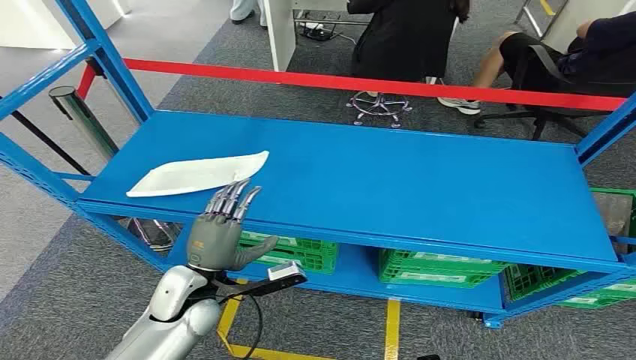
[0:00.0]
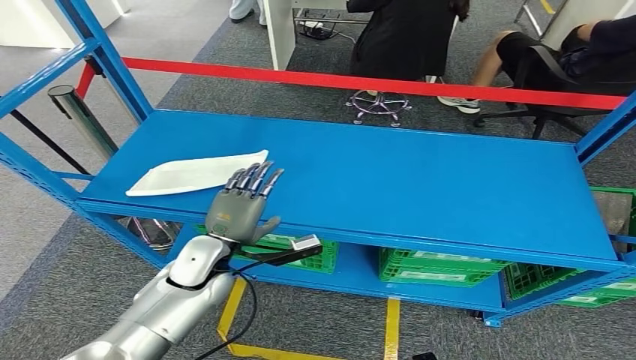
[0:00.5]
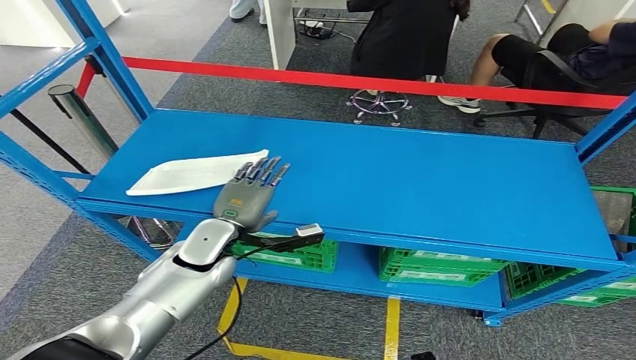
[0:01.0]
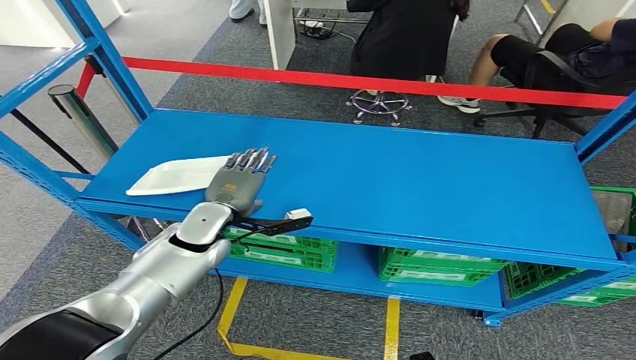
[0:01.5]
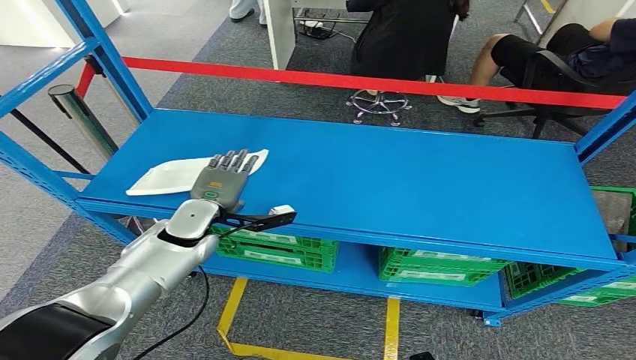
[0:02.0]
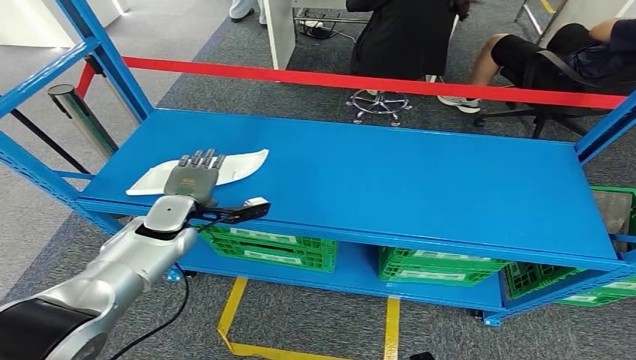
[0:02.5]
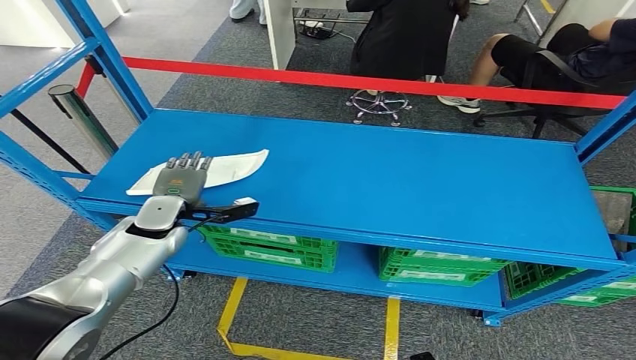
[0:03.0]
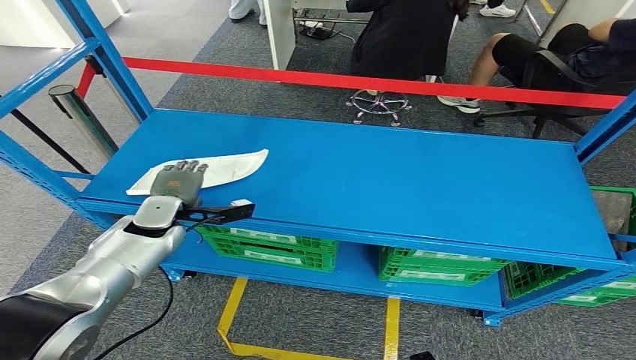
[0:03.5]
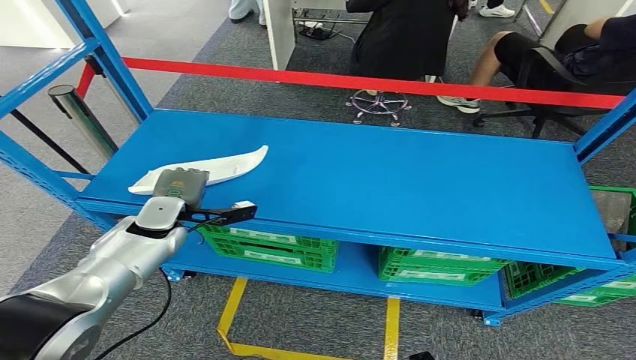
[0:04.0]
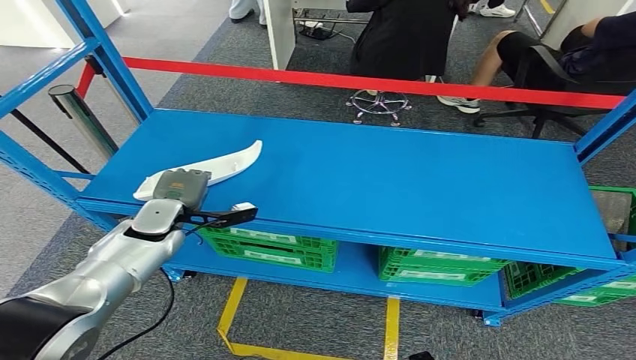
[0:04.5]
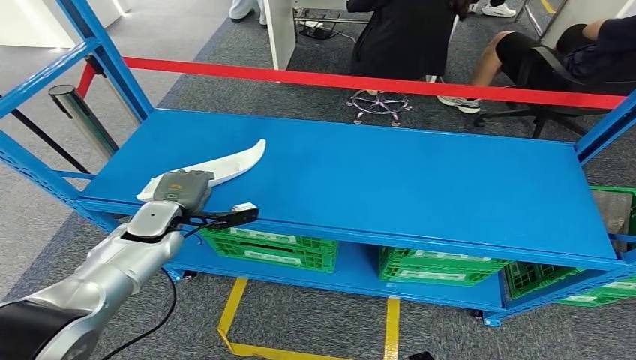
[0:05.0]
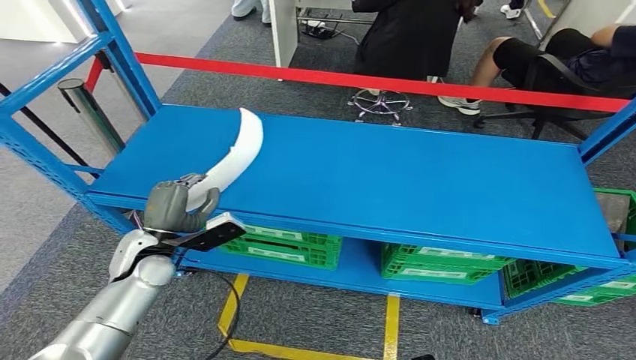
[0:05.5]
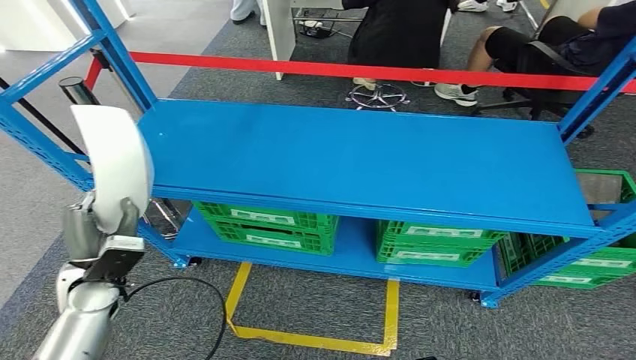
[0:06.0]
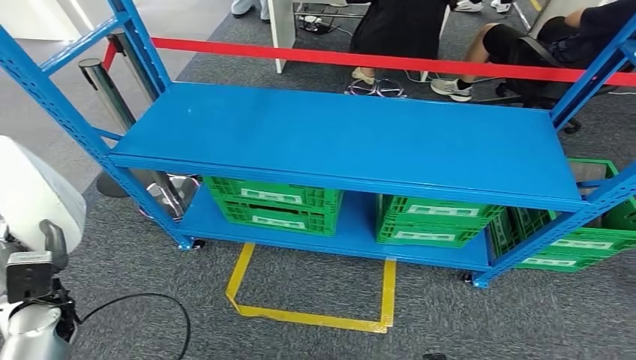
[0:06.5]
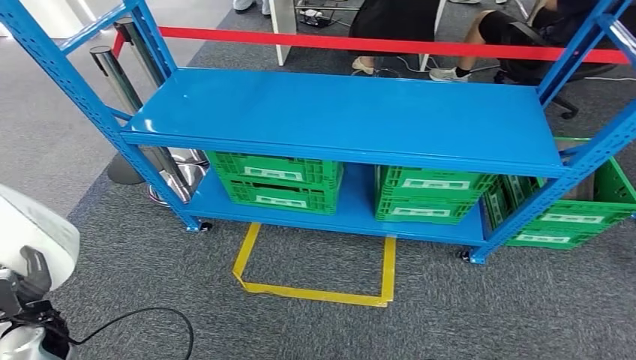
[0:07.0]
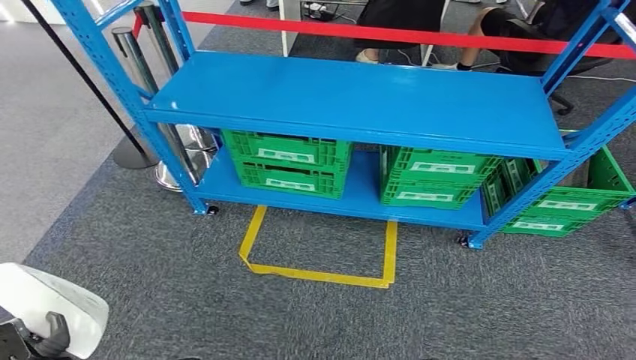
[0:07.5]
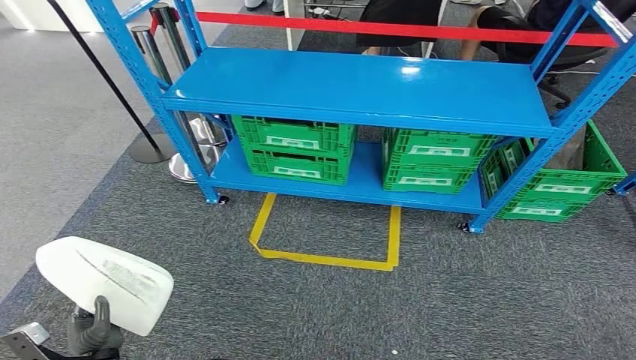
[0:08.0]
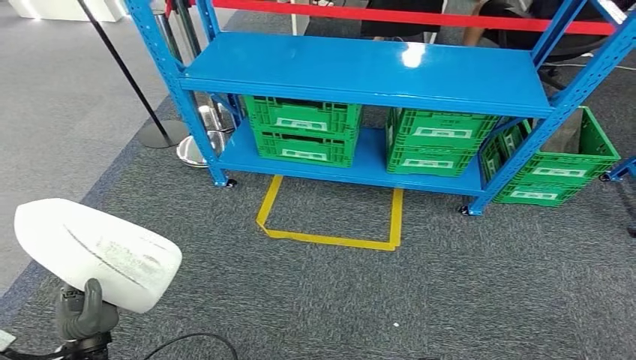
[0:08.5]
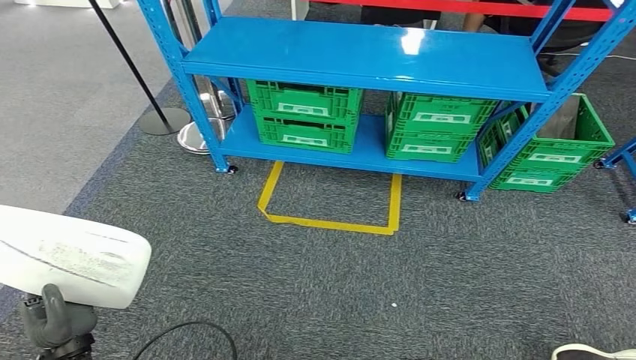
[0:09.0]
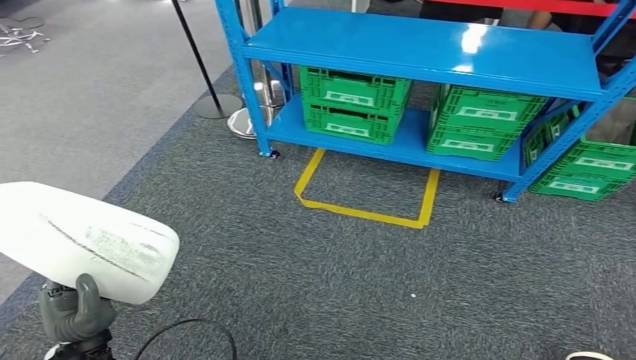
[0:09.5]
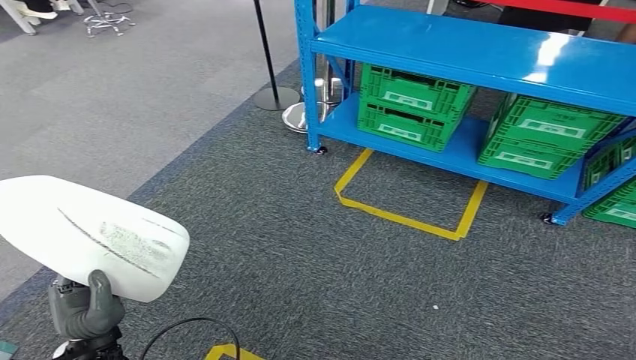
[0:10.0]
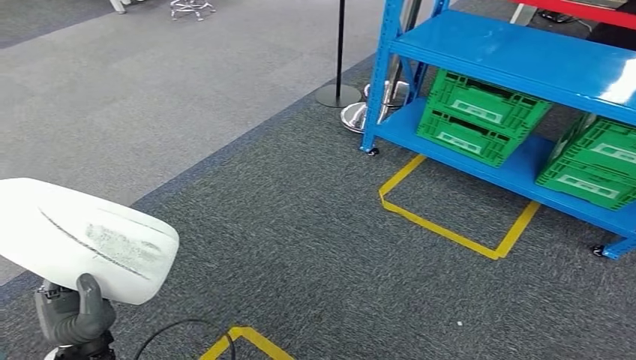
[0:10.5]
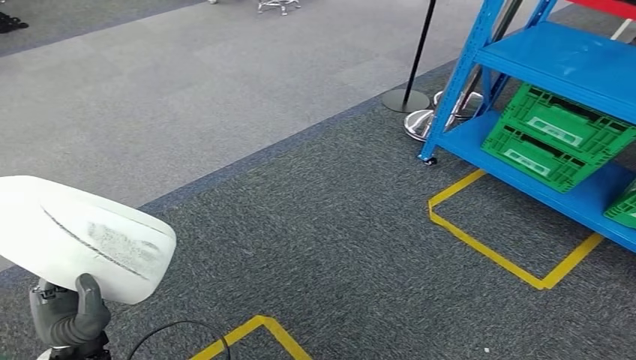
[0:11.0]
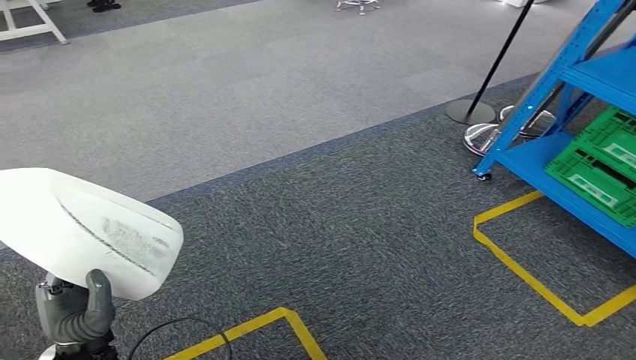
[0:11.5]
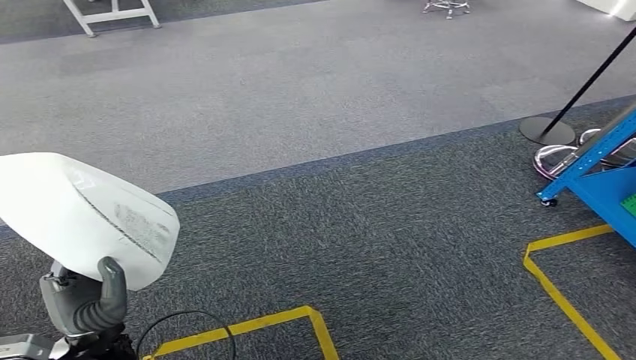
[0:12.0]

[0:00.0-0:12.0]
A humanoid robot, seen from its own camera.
Step, 0:00.0 to 0:06.5: Pick up the small component from the shelf.
0:02.0 to 0:04.0: The left hand is displaced to the left by some 5 cm.

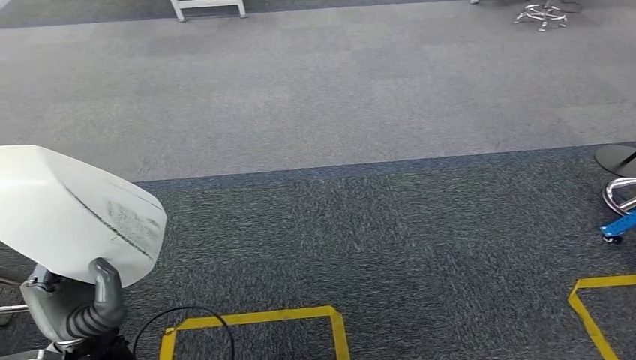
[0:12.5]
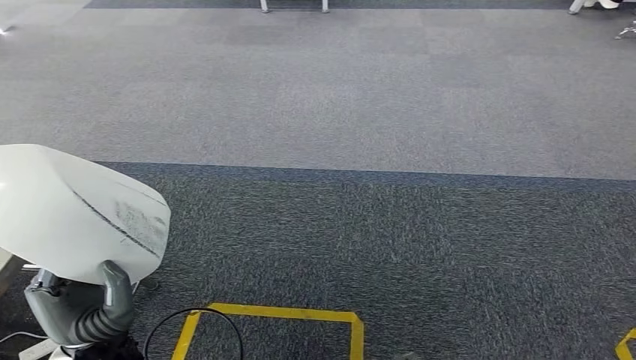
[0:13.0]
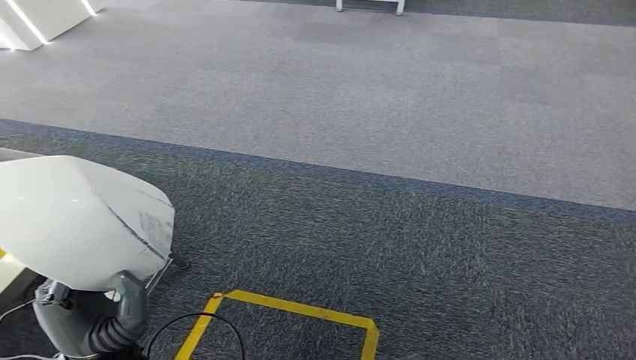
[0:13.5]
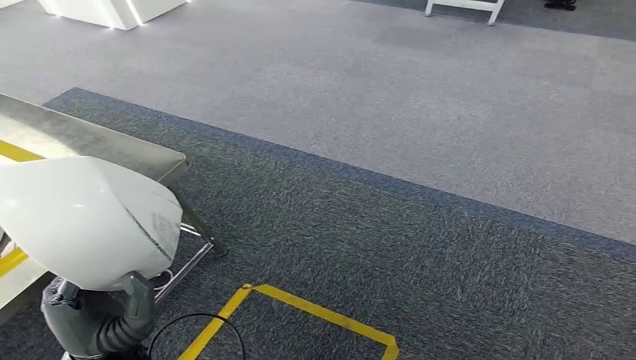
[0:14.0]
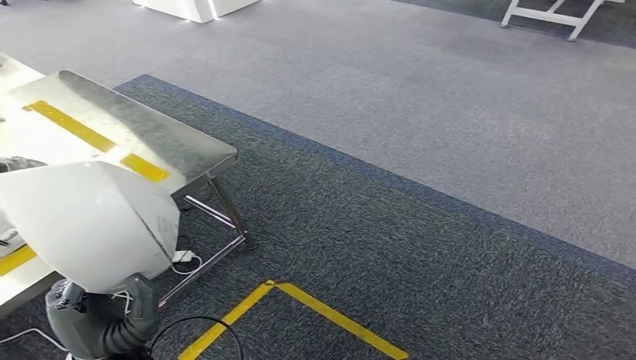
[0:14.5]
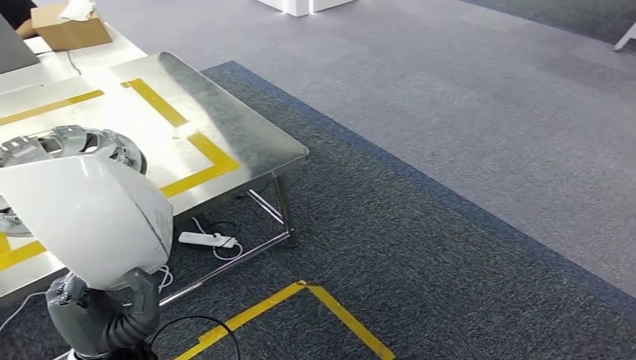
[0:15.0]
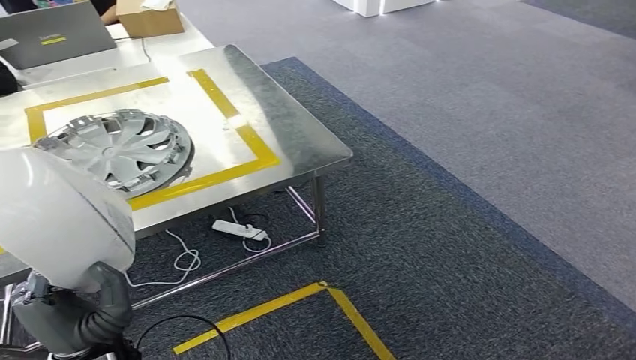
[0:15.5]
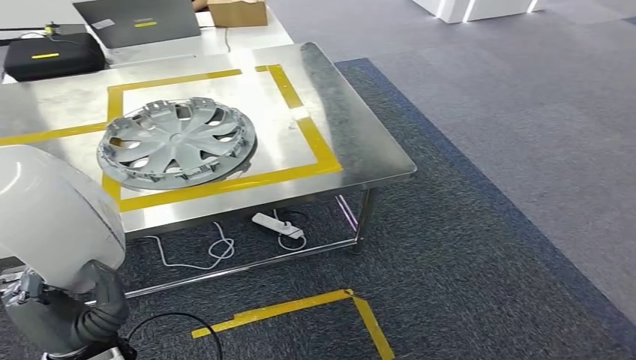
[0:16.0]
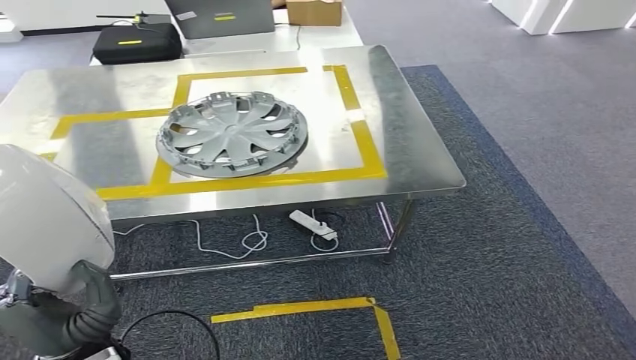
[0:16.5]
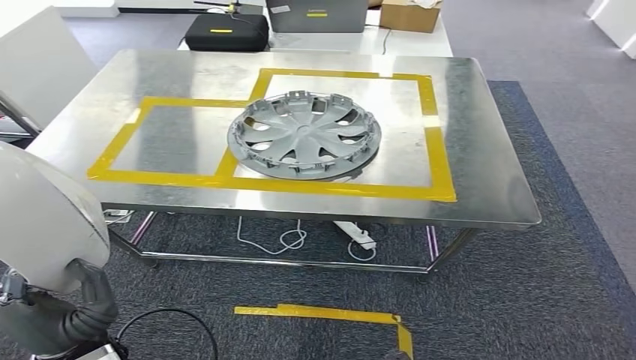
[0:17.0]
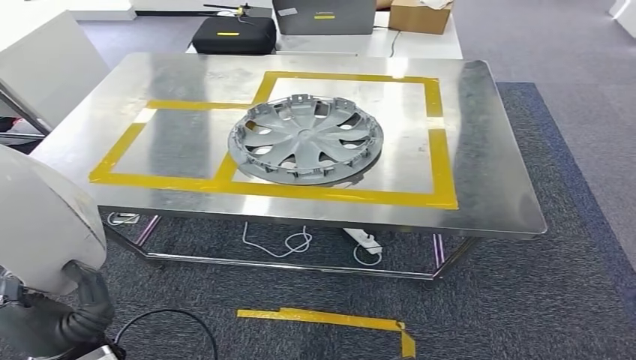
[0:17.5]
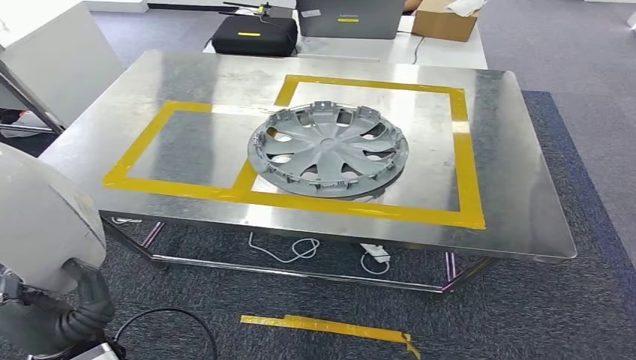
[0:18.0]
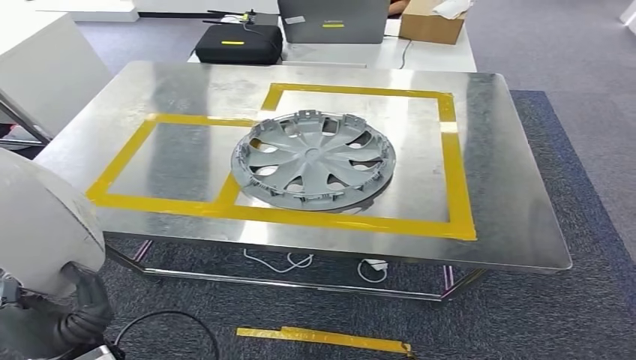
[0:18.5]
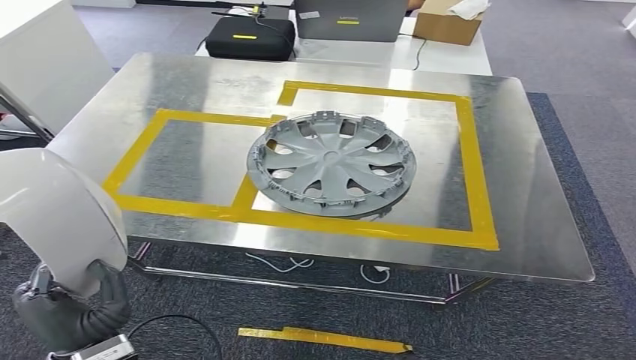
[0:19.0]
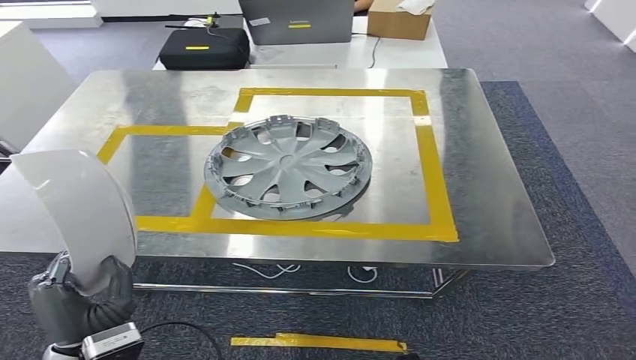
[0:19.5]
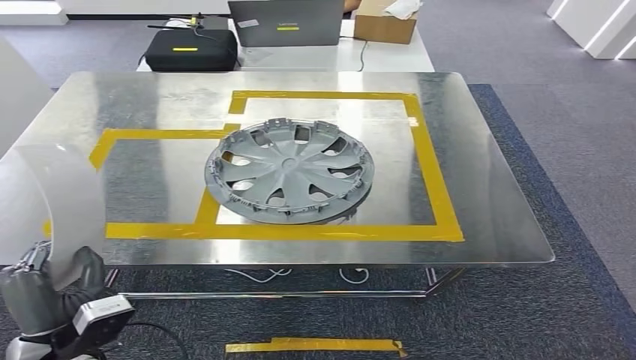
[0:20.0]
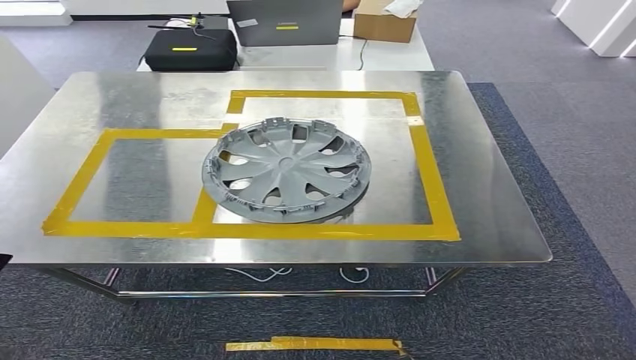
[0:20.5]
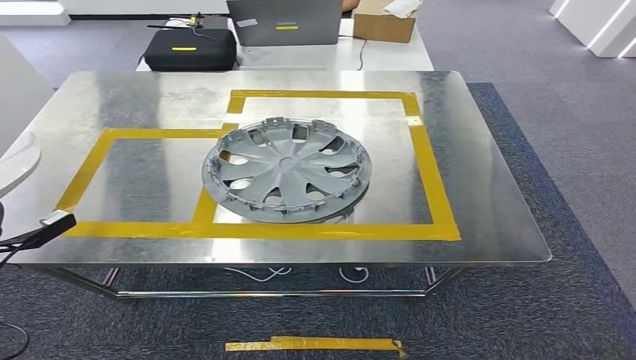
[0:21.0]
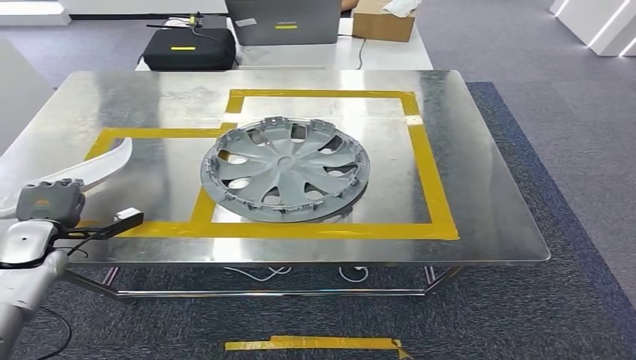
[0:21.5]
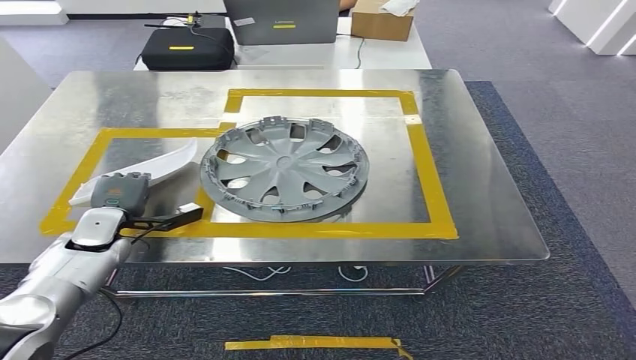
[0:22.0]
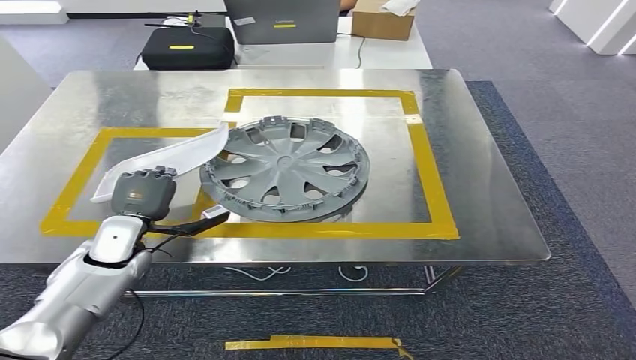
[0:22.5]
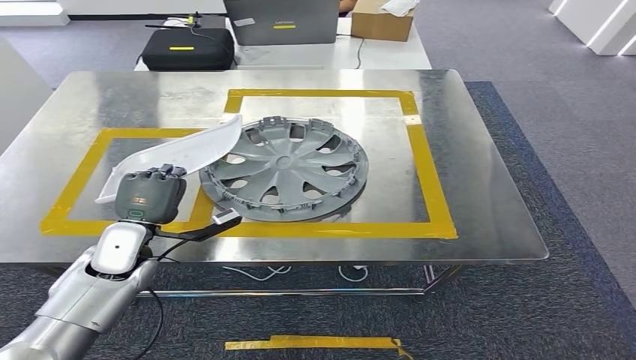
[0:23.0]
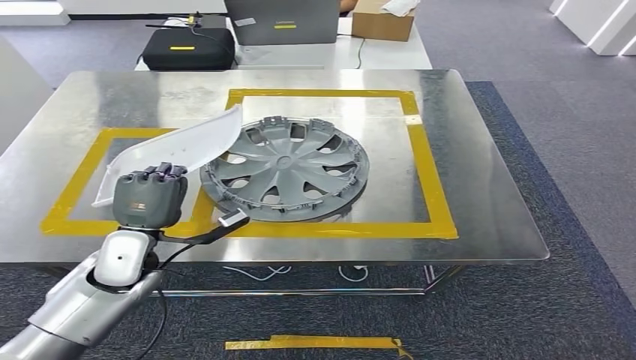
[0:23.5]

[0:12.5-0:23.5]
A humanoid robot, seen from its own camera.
Step, 0:12.5 to 0:17.5: Move the small component to the workbench.
0:20.0 to 0:21.5: The left hand travels forward and to the left by roughly 25 cm.
0:21.5 to 0:23.5: The left hand goes about 20 cm to the right.
